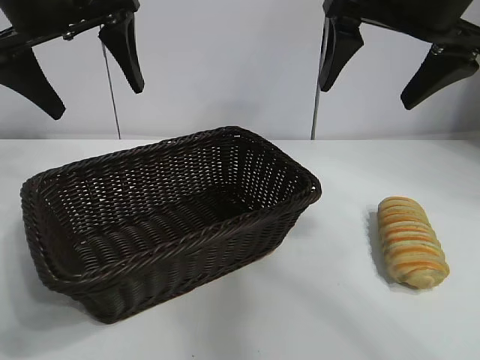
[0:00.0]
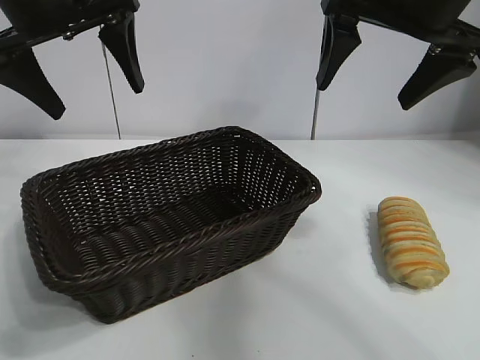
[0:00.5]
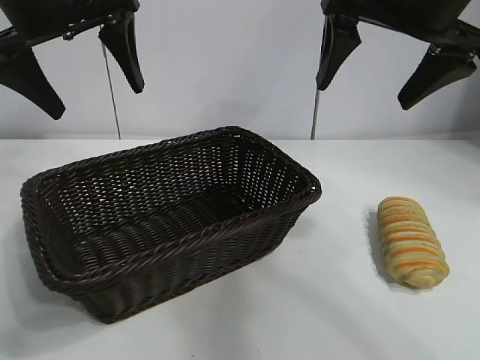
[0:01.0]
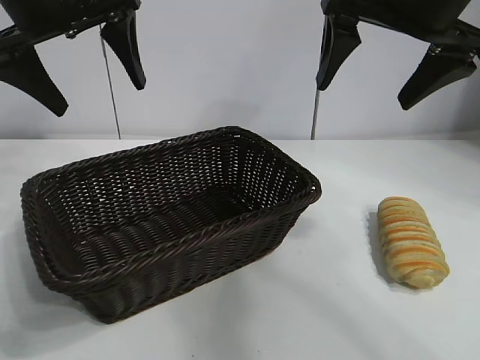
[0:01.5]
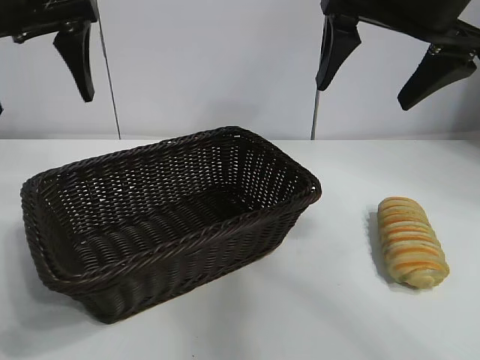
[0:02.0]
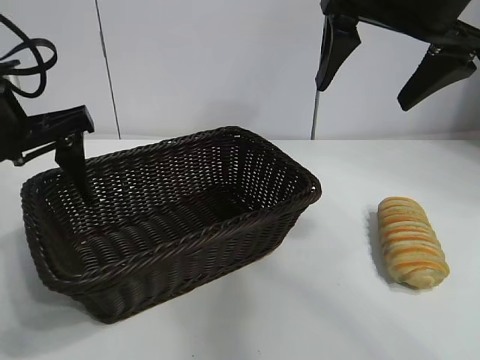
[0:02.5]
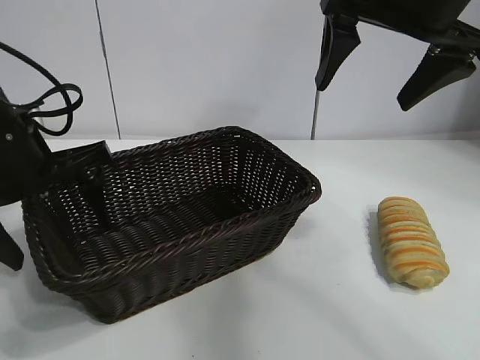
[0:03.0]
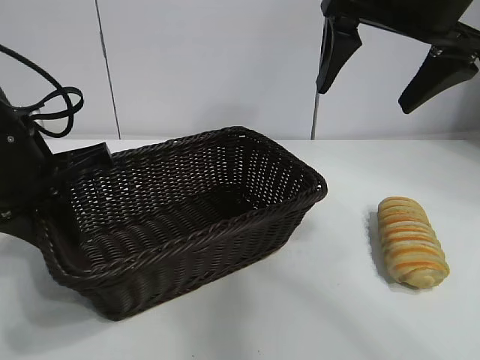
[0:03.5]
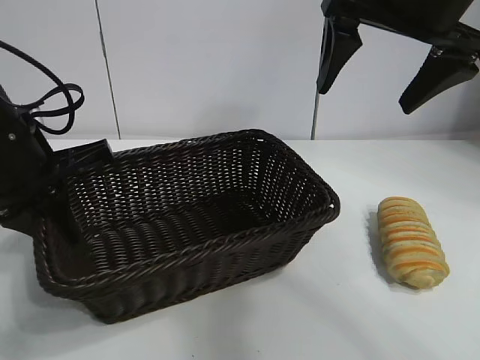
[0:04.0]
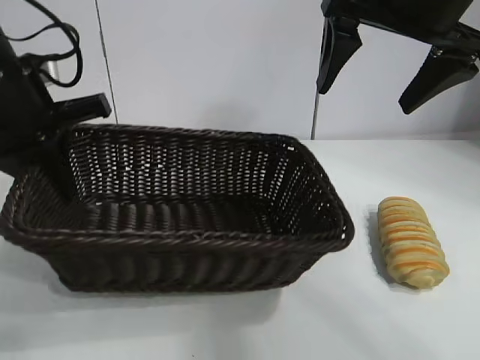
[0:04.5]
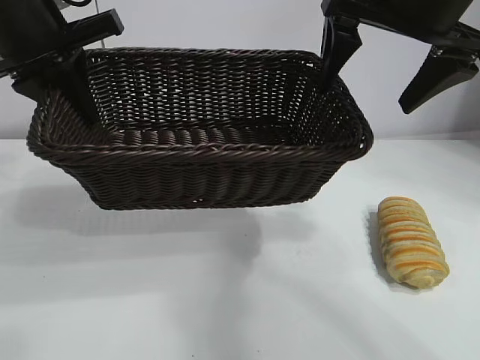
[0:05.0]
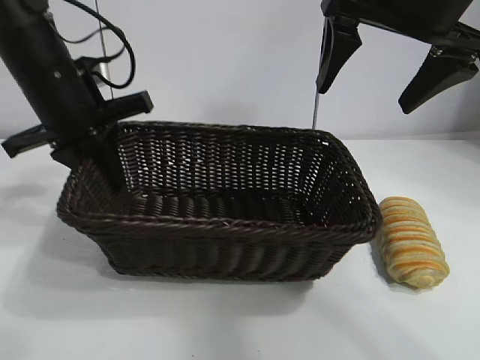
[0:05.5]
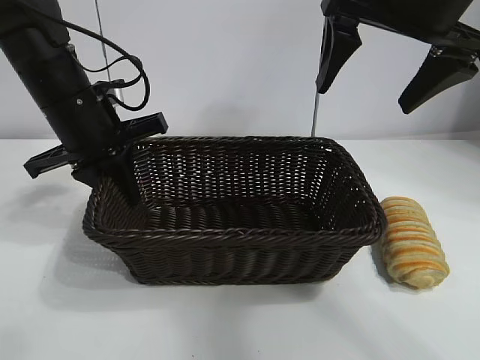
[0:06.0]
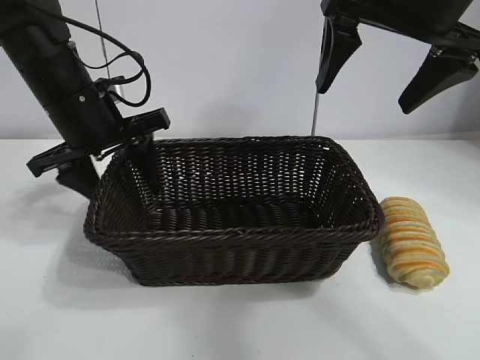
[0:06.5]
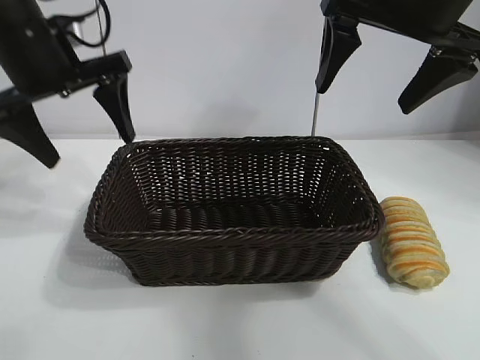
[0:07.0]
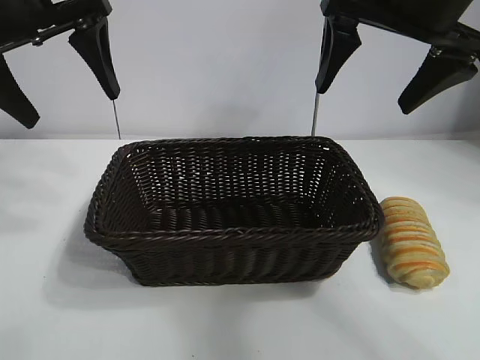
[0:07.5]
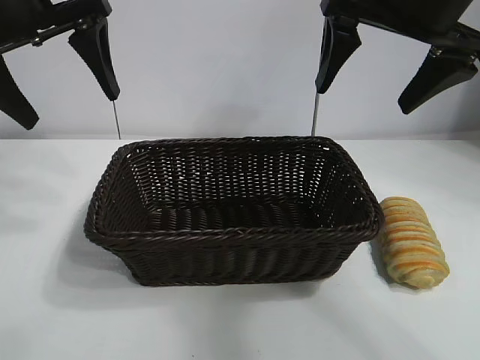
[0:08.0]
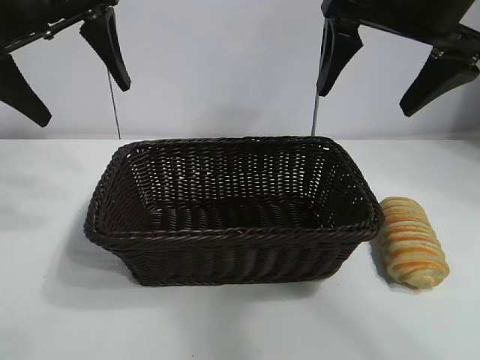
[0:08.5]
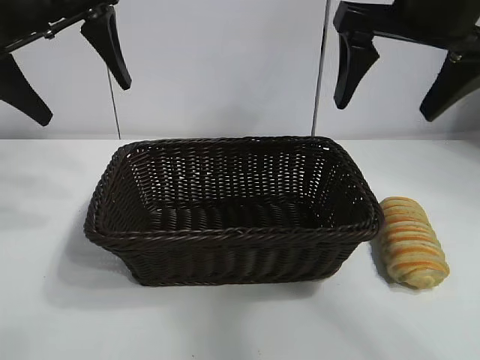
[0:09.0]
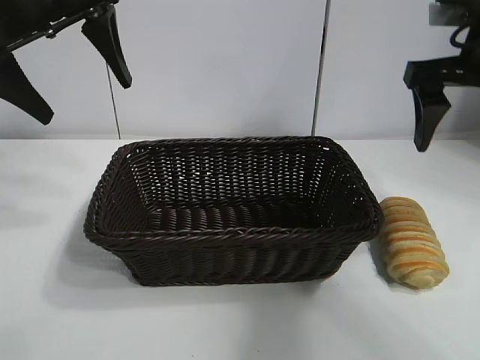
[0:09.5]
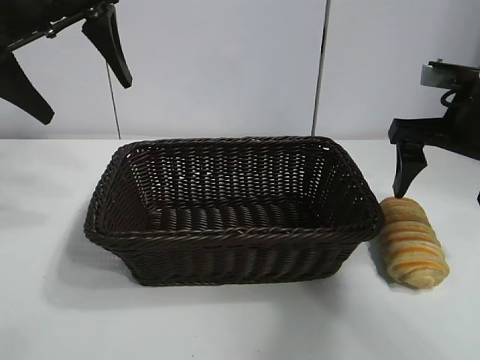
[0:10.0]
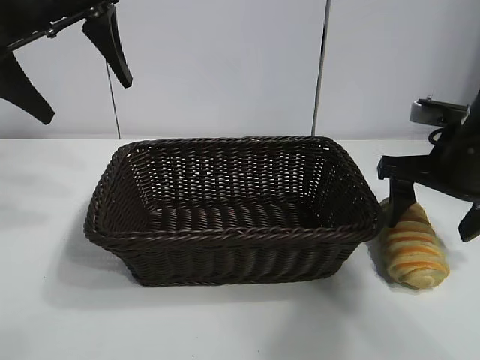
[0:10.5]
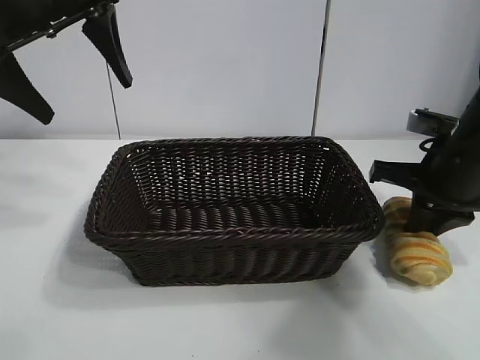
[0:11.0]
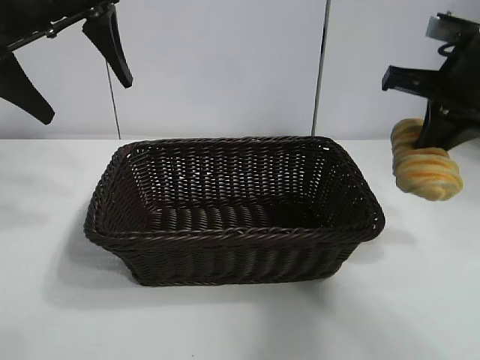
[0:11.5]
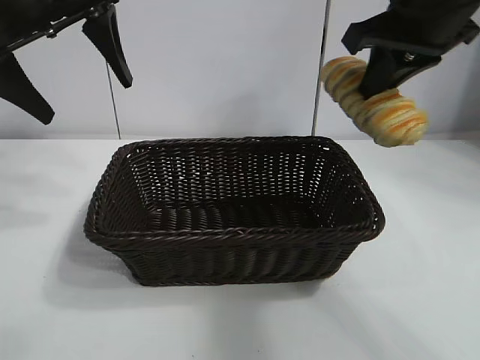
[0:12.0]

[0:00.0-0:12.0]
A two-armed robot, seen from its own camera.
Task of the whole recording: pick up the long bread and put it into the basket.
Step, 0:01.5 to 0:03.5: Grasp the basket with the left gripper.
Step, 0:04.0 to 0:06.5: Place the basket in the center of the table with the left gripper.
Step, 0:07.0 to 0:10.5: Grasp the long bread with right gripper.

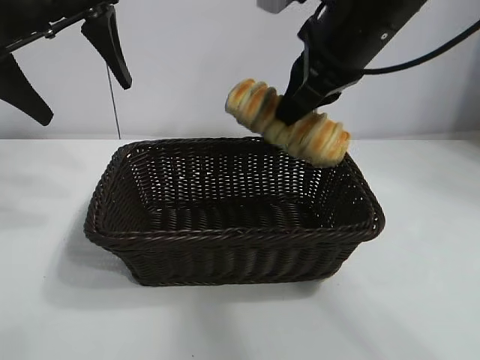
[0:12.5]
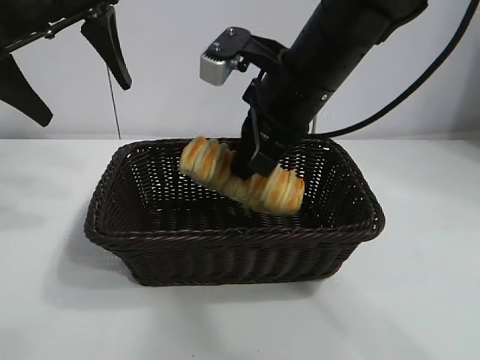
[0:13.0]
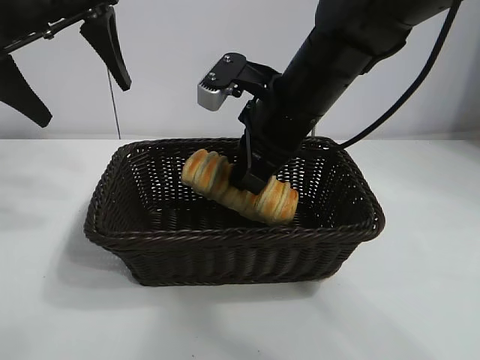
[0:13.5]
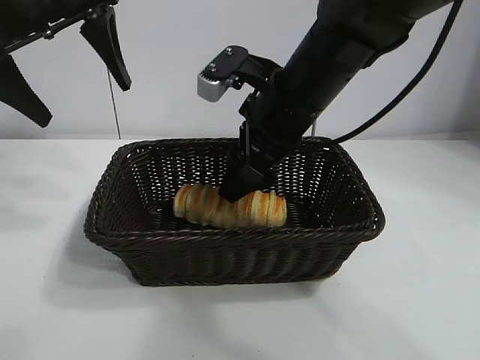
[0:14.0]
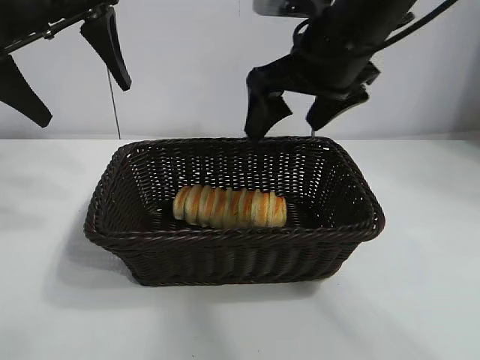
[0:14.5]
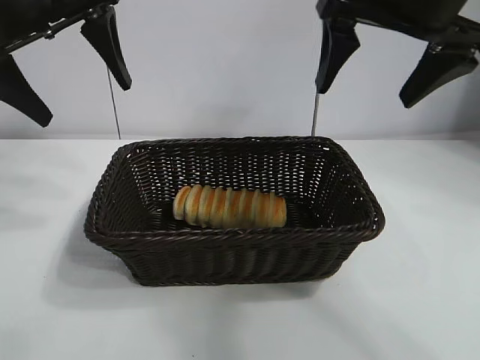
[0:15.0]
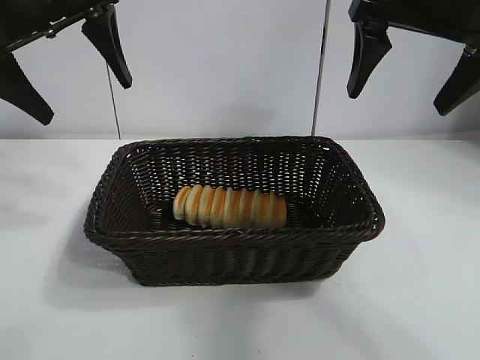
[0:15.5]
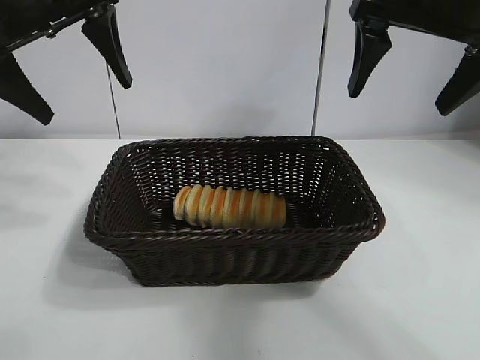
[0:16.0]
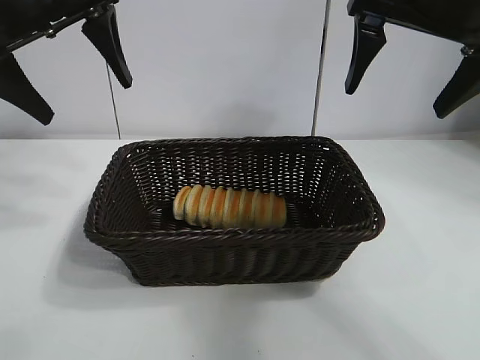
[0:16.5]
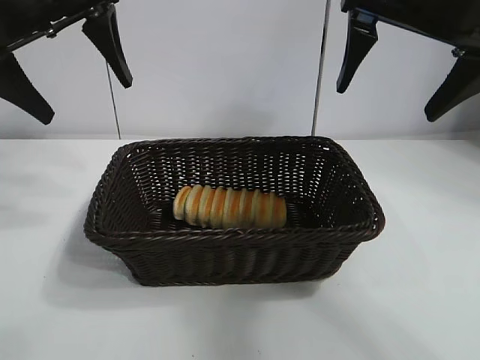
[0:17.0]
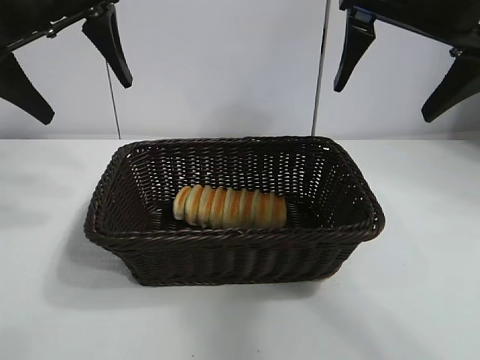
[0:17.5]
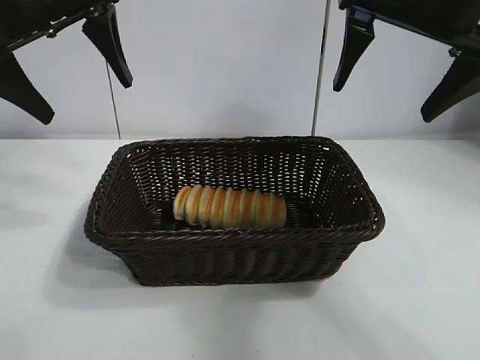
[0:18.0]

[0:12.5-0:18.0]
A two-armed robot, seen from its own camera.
Task of the whole recording: pick up the long bread and put it into the basket.
Step, 0:12.5 to 0:14.0: Place the long bread in the basket with right gripper.
